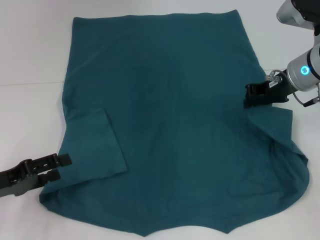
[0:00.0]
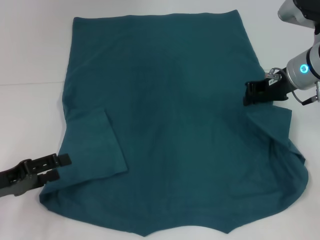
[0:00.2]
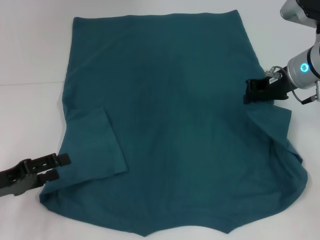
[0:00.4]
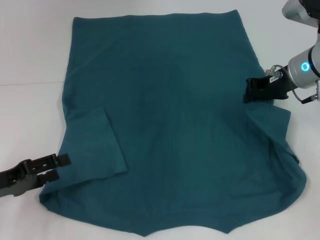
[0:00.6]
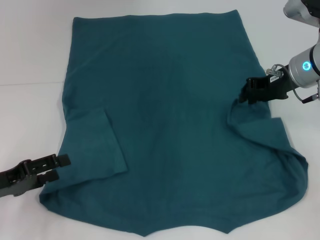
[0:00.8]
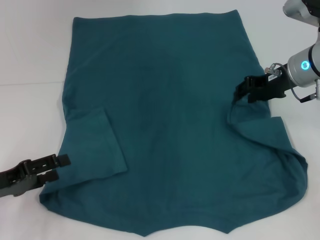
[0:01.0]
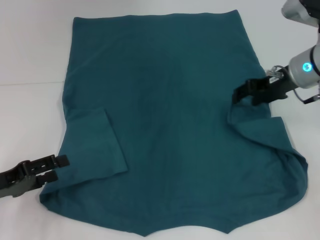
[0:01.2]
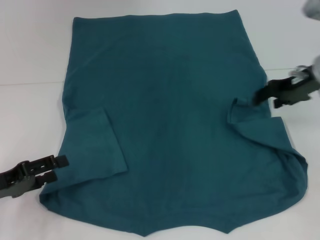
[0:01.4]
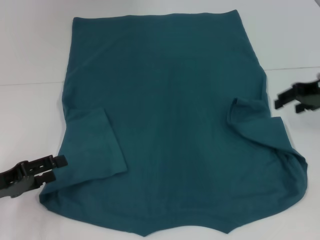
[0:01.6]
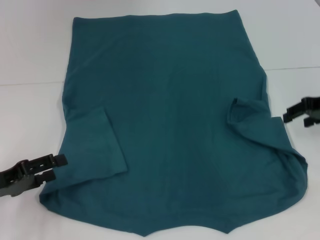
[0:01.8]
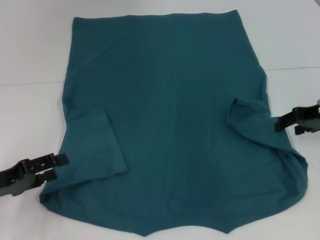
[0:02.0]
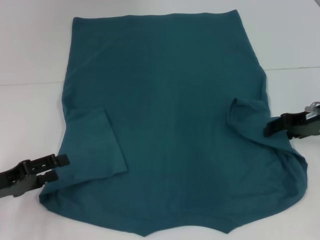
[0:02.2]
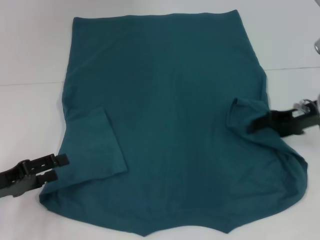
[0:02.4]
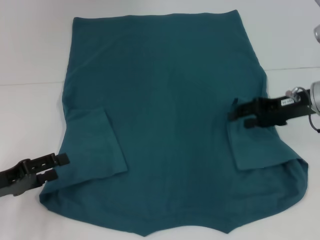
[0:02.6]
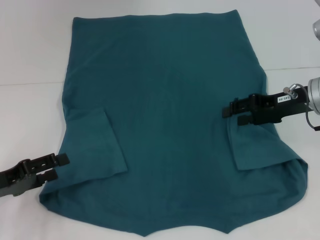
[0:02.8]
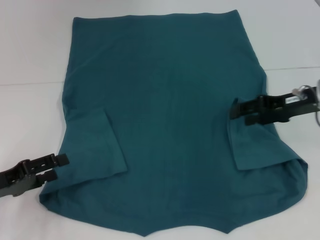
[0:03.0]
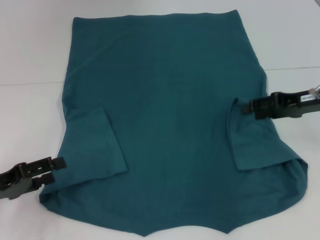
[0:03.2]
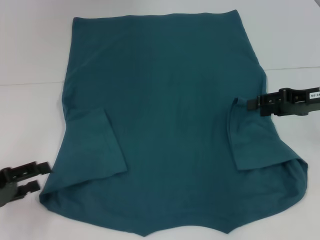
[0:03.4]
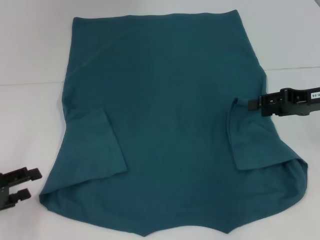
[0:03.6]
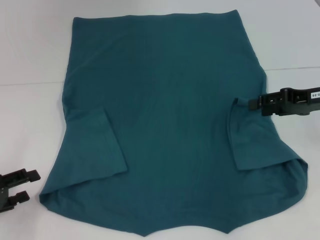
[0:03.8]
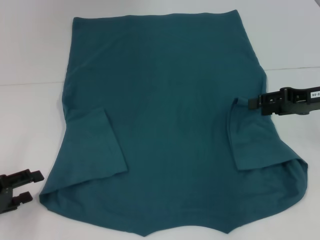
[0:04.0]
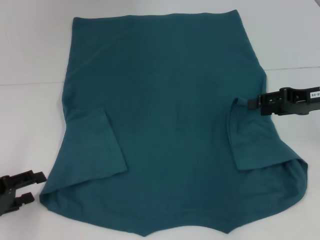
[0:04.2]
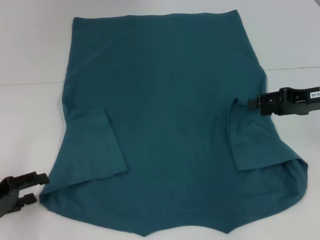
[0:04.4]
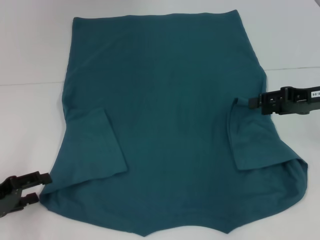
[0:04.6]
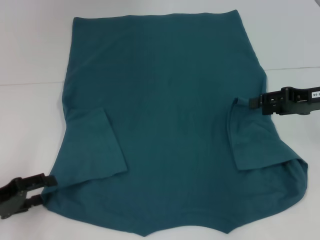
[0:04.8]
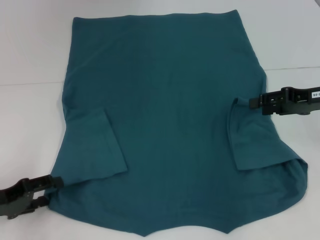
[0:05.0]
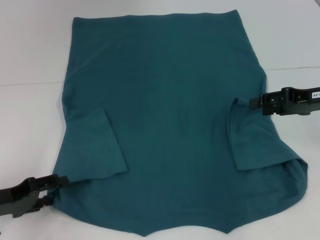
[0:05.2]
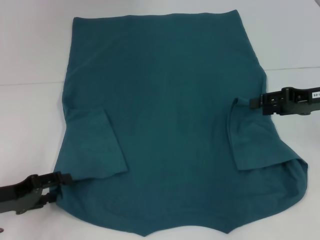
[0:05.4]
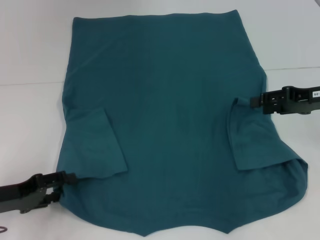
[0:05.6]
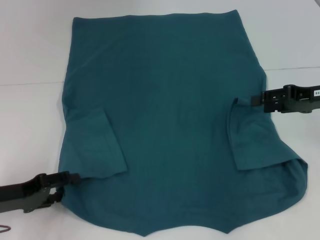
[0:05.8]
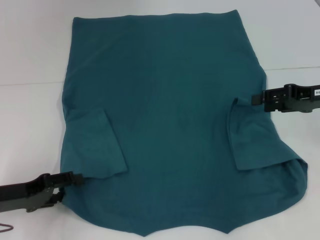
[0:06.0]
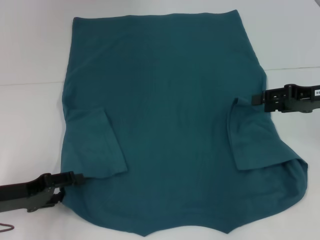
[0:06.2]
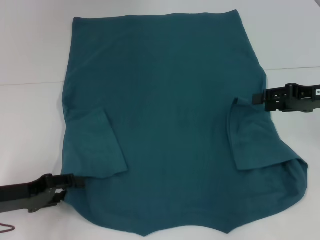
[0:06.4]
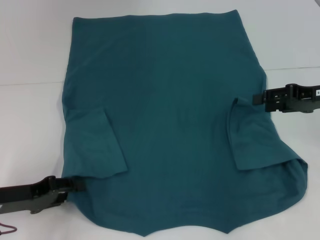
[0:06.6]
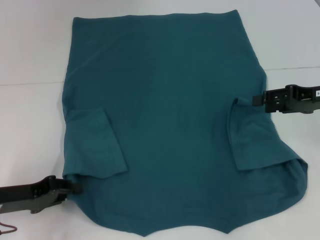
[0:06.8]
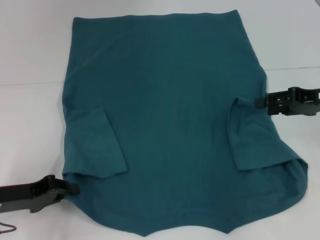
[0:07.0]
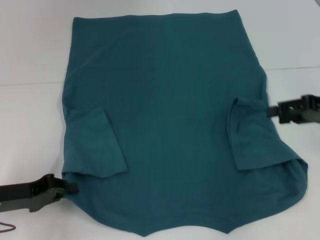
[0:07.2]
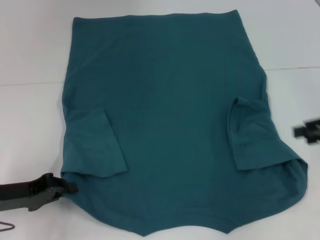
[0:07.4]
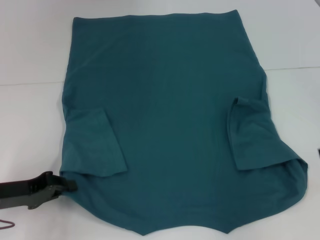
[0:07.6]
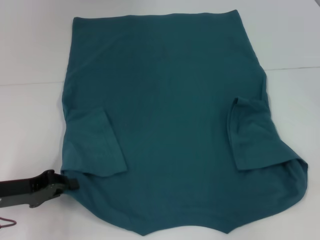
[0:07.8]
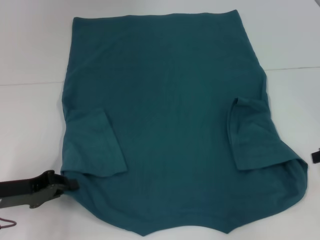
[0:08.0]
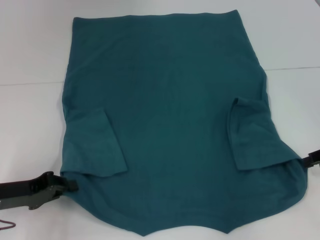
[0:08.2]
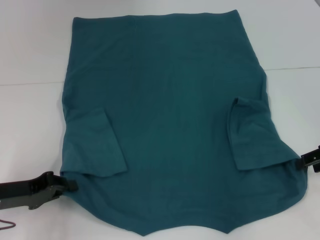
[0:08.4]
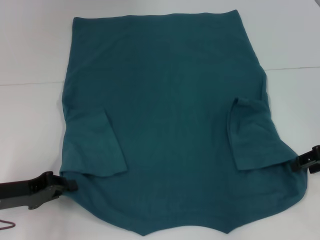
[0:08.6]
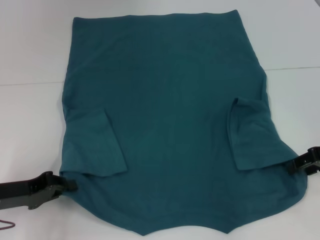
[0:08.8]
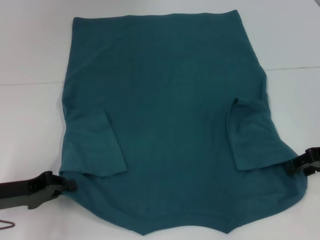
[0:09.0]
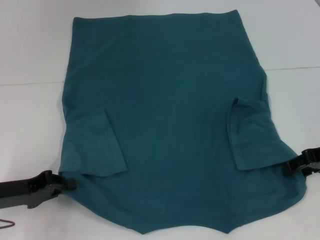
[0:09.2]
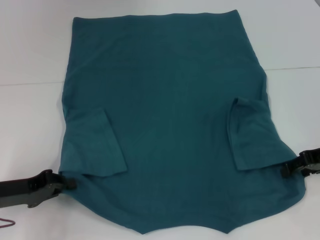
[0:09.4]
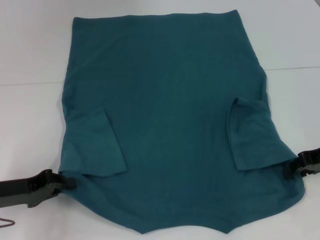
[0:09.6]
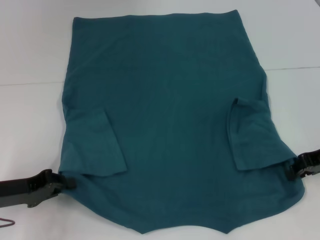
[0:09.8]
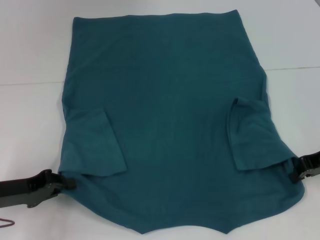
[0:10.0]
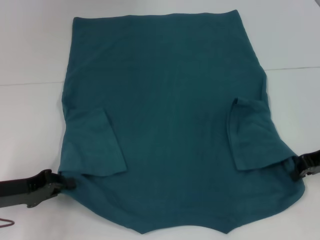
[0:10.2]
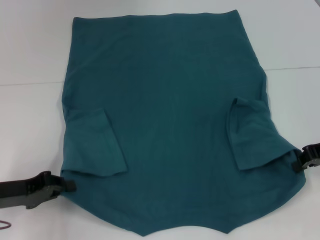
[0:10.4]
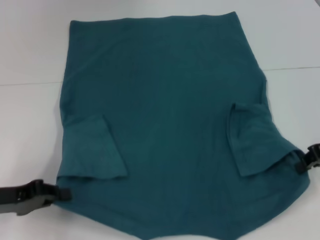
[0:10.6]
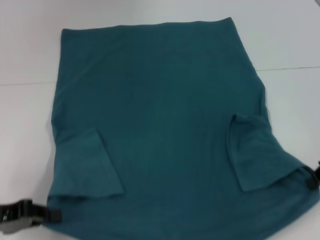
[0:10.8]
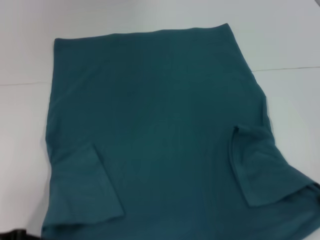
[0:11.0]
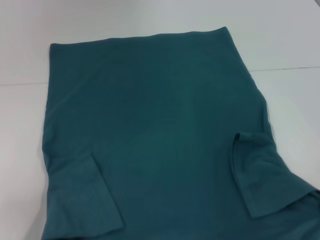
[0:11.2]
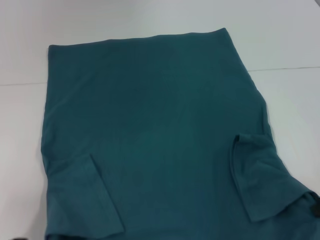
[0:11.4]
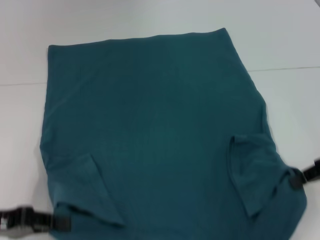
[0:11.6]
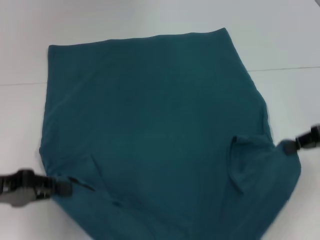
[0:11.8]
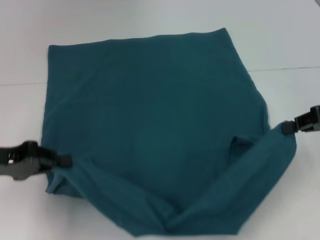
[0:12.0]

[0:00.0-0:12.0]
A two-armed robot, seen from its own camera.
Step, 0:00.0 to 0:03.0: Fold the bottom right sleeve to the right.
Step, 0:03.2 to 0:07.2: Grab the bottom left corner with your left hand.
Step, 0:07.4 to 0:10.2: Grab the bottom right corner with your right hand.
0:00.0 to 0:01.6: The right gripper shifts approximately 5 cm to the right, and opens up.
0:01.6 to 0:03.0: The right gripper moves roughly 5 cm.
0:03.0 to 0:06.0: The grippers make only small movements.
0:06.0 to 0:07.6: The right gripper is displaced to the right and backward by about 10 cm; the left gripper closes up.
0:07.6 to 0:09.0: The right gripper travels to the left by about 5 cm.
0:09.0 to 0:10.4: The right gripper closes up.
0:10.4 to 0:12.0: The right gripper changes place by about 5 cm, while the left gripper is displaced upward by approximately 10 cm, and goes backward and returns, some 5 cm each way.

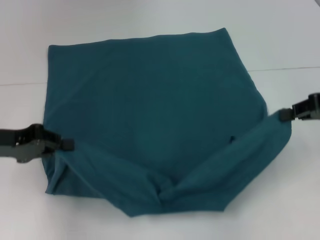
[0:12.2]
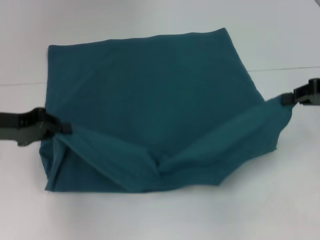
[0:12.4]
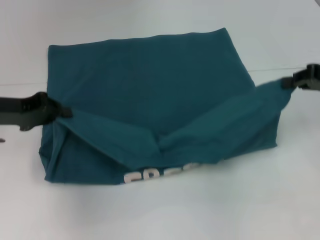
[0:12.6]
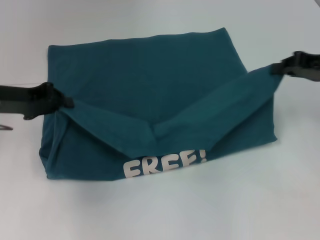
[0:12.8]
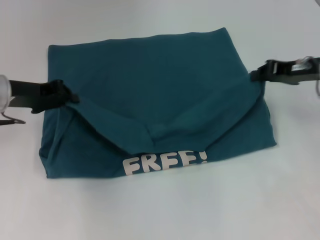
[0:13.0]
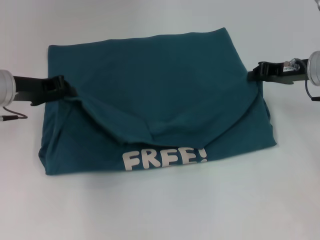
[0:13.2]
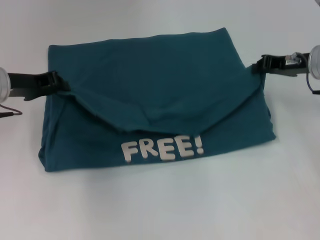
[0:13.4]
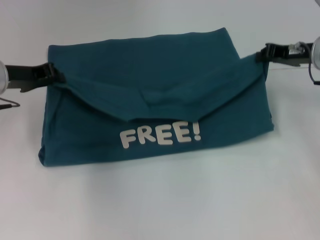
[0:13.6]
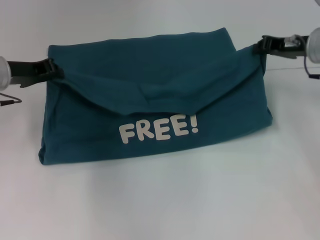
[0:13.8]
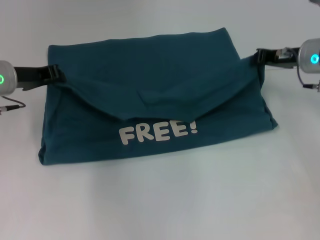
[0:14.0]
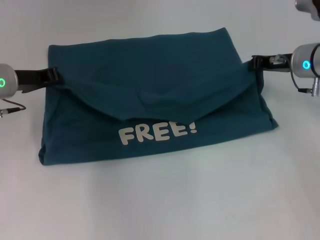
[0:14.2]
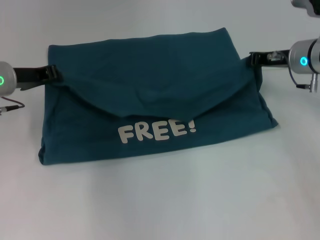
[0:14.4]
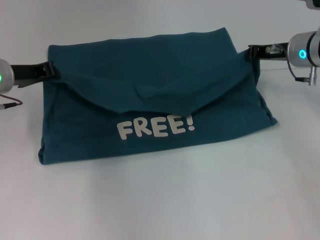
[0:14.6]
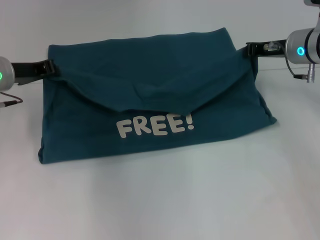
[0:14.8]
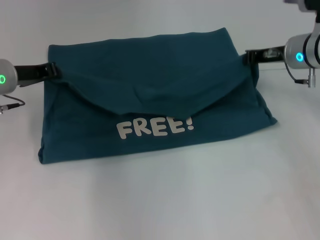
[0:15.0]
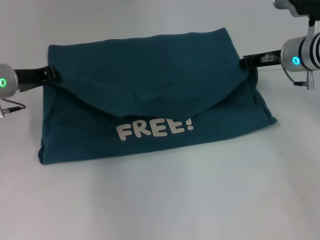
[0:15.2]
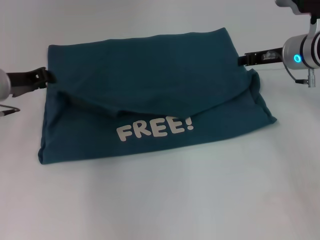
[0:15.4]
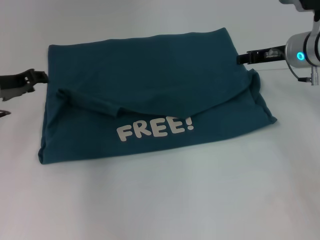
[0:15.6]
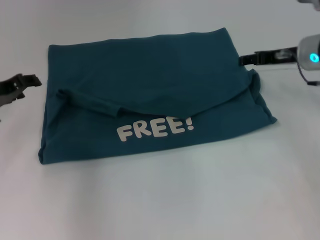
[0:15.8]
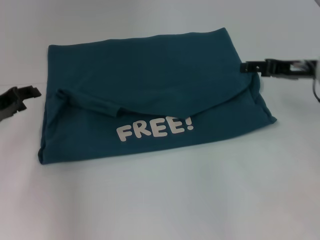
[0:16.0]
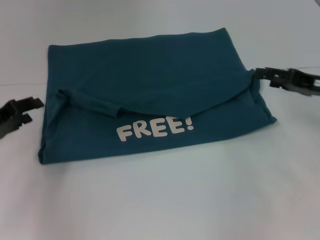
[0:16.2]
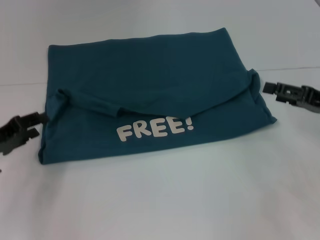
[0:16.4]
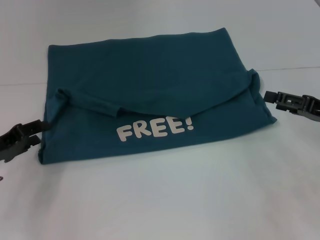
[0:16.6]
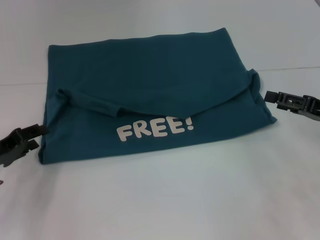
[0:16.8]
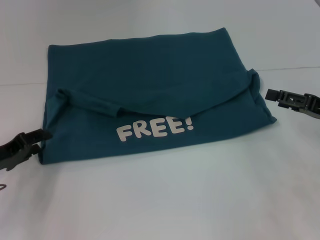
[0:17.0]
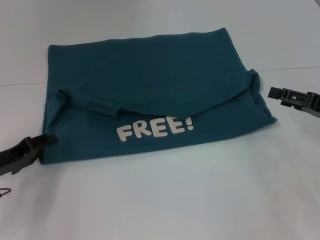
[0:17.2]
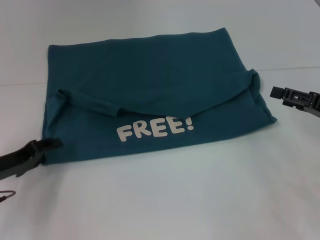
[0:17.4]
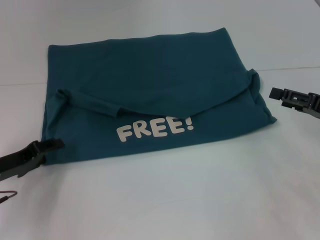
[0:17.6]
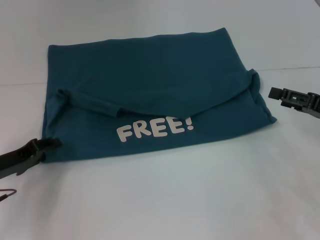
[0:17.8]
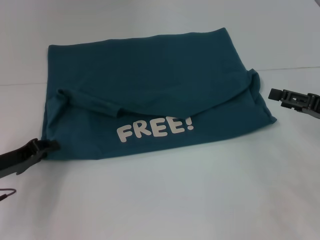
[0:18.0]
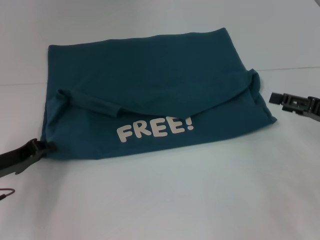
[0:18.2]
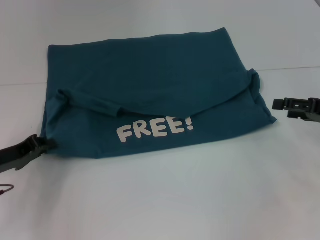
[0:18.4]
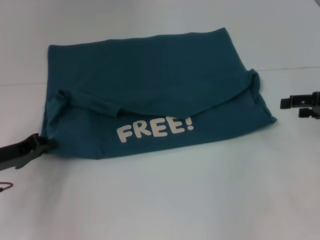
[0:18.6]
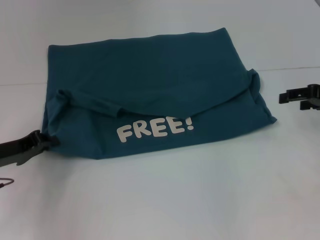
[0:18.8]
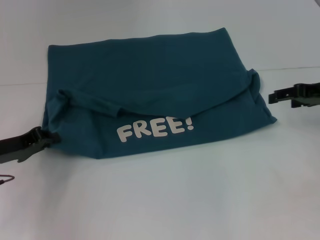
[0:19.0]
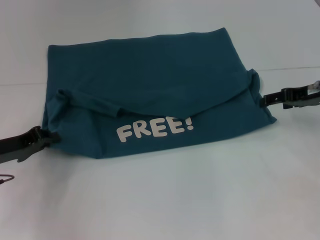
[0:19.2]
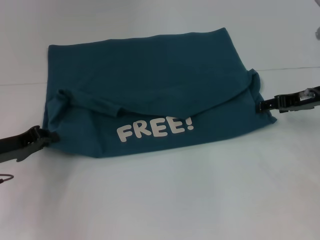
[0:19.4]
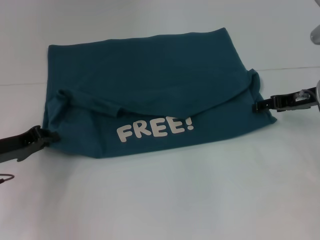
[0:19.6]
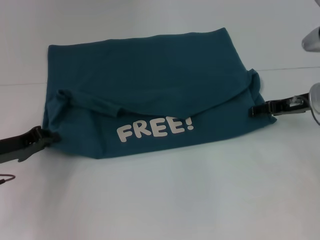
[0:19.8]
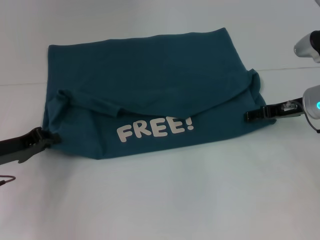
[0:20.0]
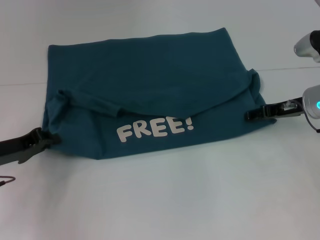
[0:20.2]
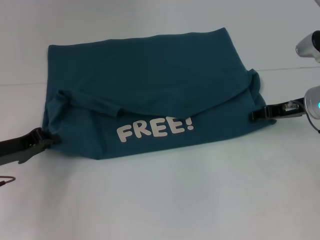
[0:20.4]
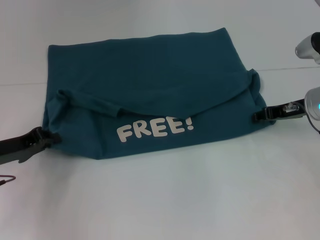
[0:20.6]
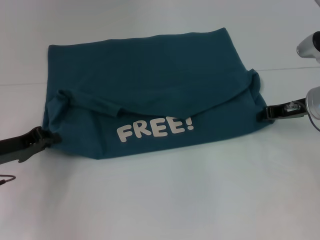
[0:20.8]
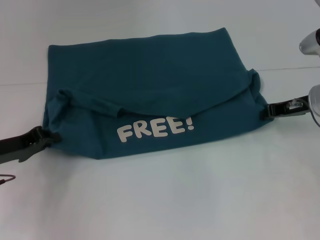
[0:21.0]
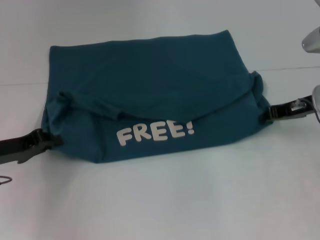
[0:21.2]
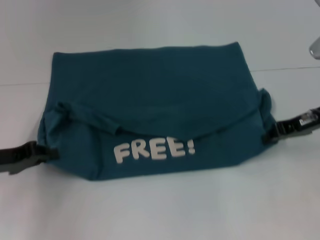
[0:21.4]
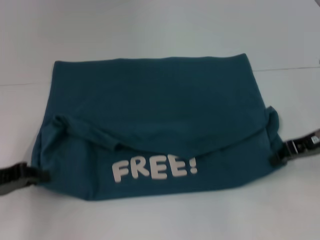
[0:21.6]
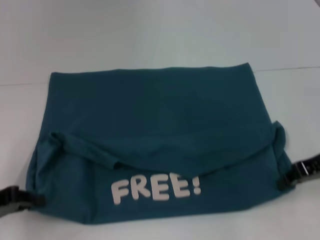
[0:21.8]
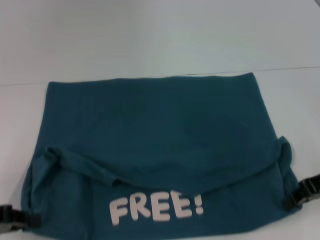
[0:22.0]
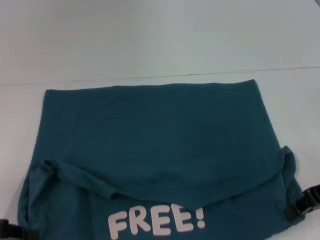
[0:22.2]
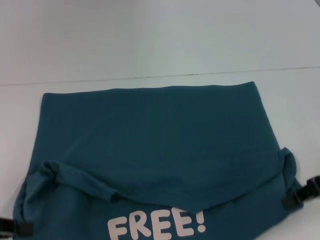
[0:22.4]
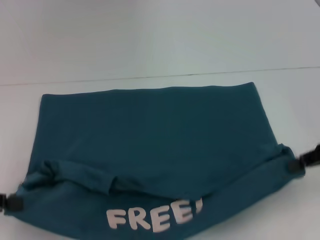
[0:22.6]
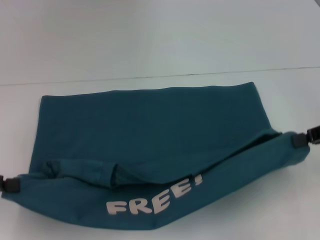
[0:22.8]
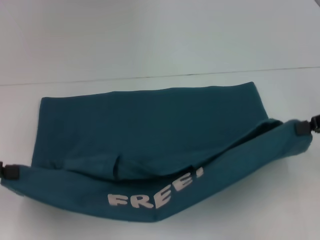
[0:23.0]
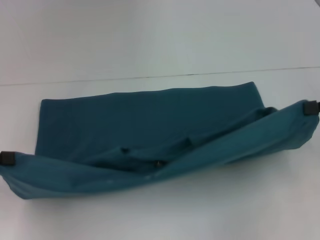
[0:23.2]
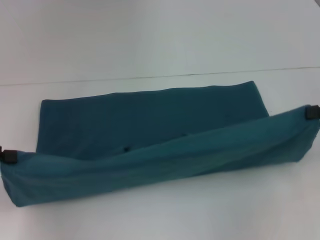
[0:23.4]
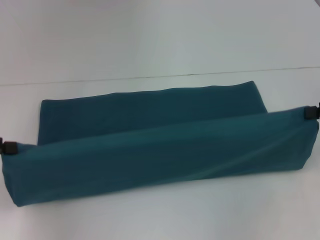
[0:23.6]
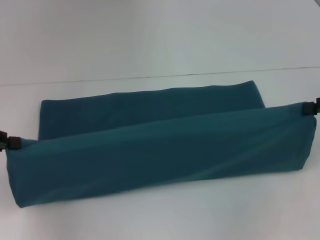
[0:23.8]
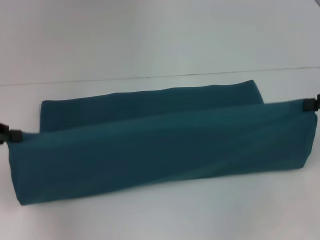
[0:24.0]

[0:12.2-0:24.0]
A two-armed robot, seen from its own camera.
Step, 0:12.2 to 0:15.8: Fold the clothes to the left.
Step, 0:12.2 to 0:15.8: Fold the clothes to the right.
Step, 0:16.0 to 0:22.2: Pull the clothes with your left hand.
Step, 0:16.0 to 0:22.2: Pull the clothes with your right hand.
0:12.2 to 0:13.6: The right gripper shifts about 10 cm forward and to the left. Meanwhile the left gripper heads forward, covering some 10 cm.
0:13.6 to 0:15.2: The right gripper shifts by approximately 5 cm.
0:15.2 to 0:16.6: The right gripper is displaced backward and to the right by roughly 15 cm, and opens up; the left gripper is displaced backward, downward and to the left by approximately 15 cm, and opens.
0:16.6 to 0:18.2: The left gripper closes its fingers.
0:18.2 to 0:19.6: The right gripper travels forward and to the left by about 10 cm.
0:19.6 to 0:21.0: The right gripper closes.
0:21.0 to 0:22.6: The left gripper heads backward, upward and to the left, covering roughly 15 cm; the right gripper shifts some 10 cm backward and upward.
0:22.6 to 0:24.0: The right gripper ends up some 5 cm from where it was. The left gripper shifts roughly 10 cm forward.
